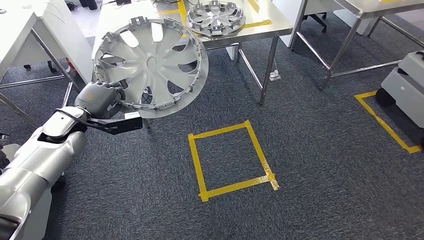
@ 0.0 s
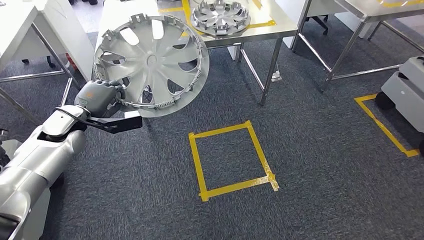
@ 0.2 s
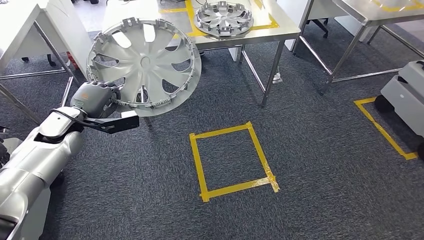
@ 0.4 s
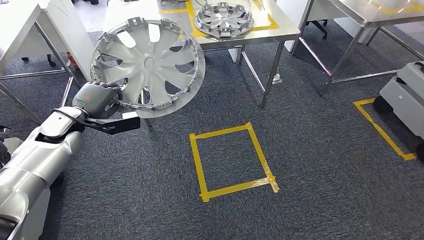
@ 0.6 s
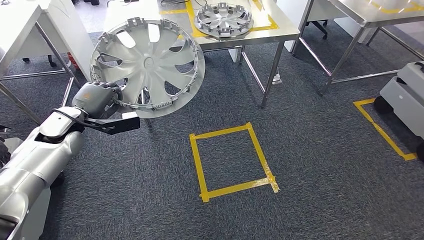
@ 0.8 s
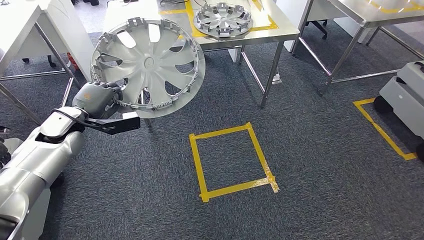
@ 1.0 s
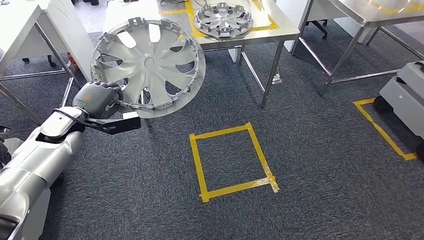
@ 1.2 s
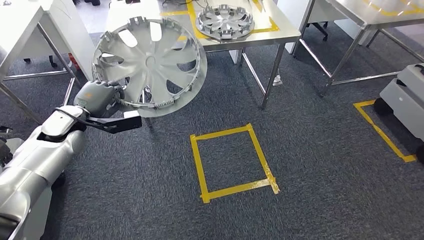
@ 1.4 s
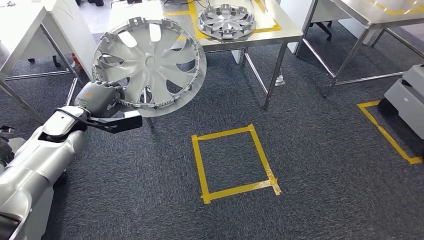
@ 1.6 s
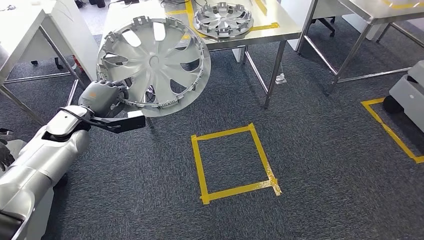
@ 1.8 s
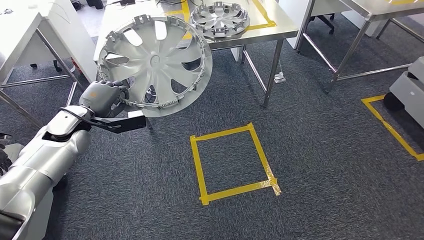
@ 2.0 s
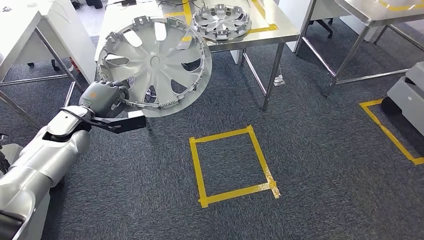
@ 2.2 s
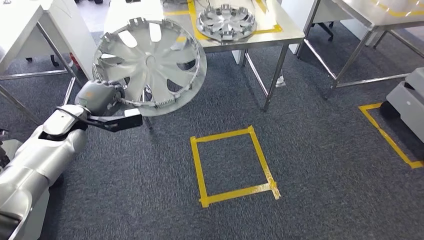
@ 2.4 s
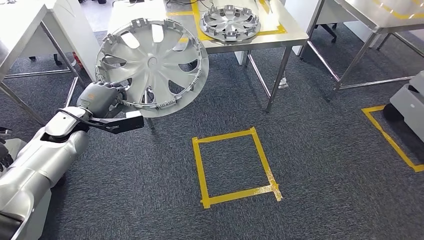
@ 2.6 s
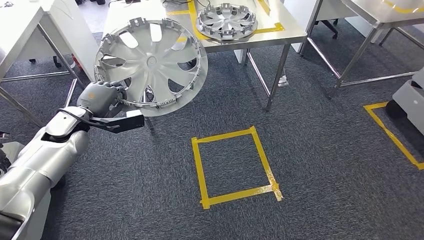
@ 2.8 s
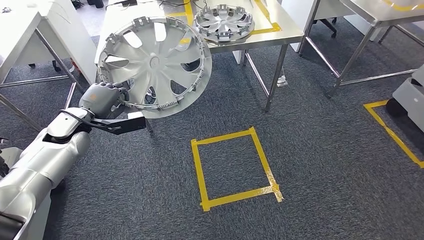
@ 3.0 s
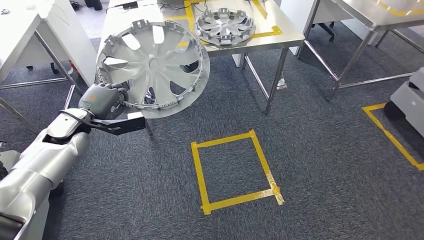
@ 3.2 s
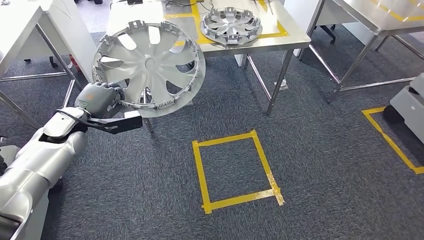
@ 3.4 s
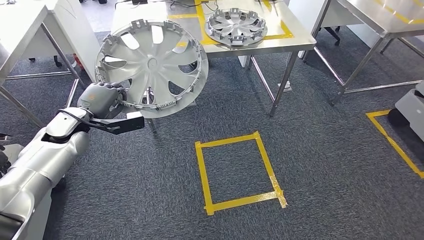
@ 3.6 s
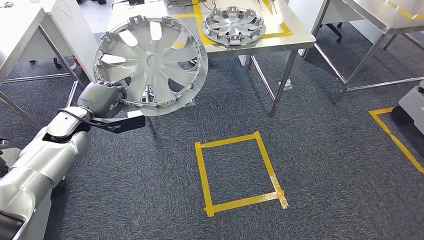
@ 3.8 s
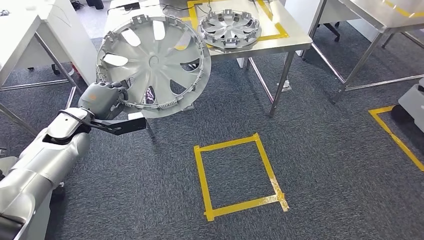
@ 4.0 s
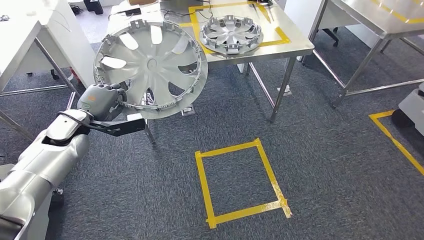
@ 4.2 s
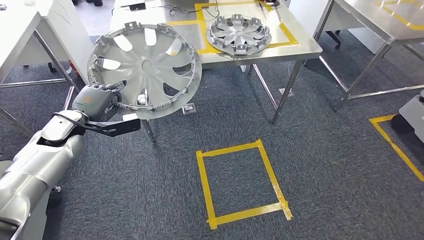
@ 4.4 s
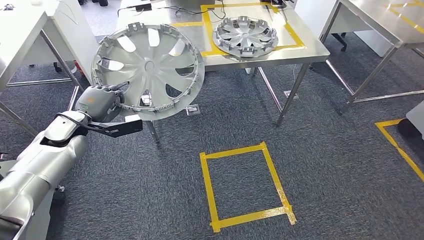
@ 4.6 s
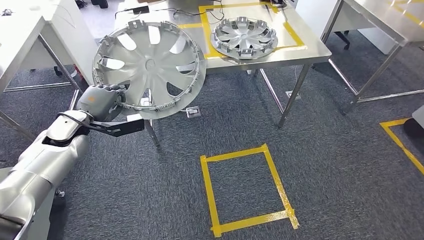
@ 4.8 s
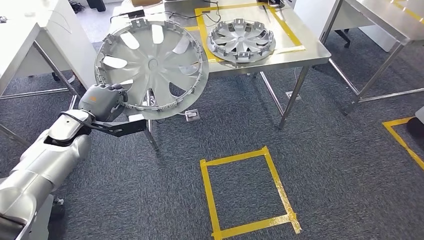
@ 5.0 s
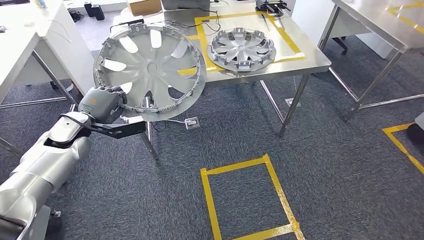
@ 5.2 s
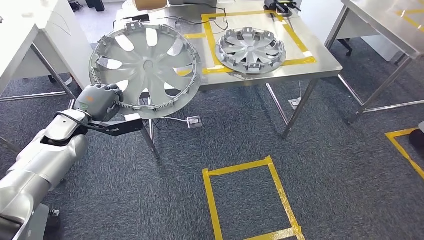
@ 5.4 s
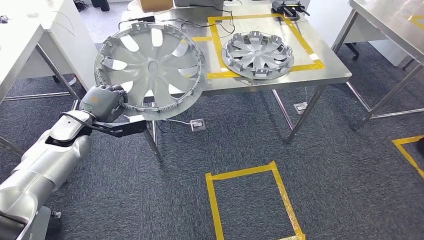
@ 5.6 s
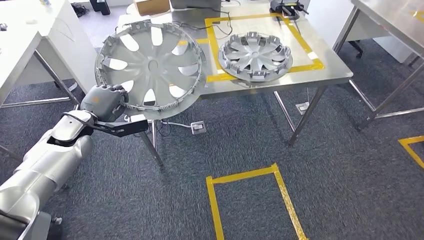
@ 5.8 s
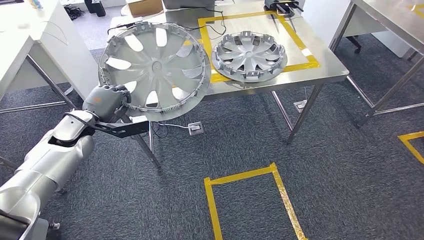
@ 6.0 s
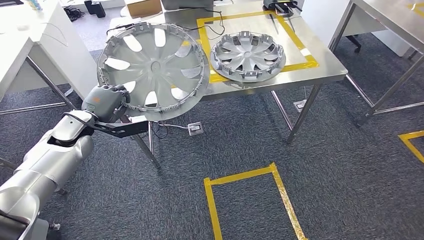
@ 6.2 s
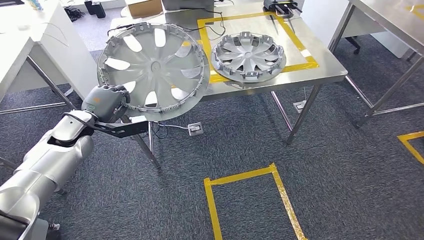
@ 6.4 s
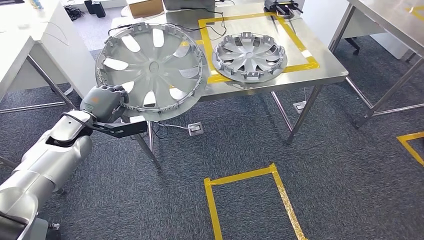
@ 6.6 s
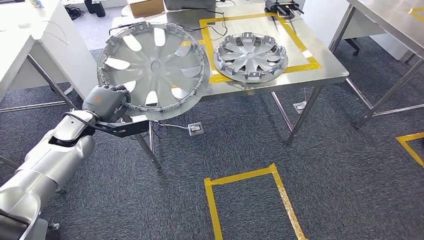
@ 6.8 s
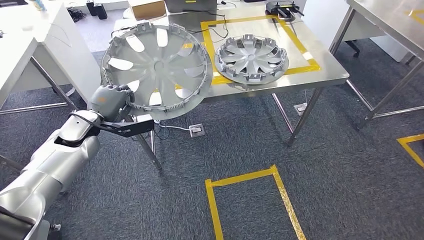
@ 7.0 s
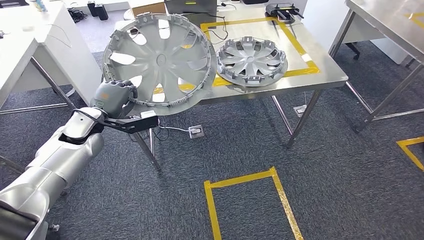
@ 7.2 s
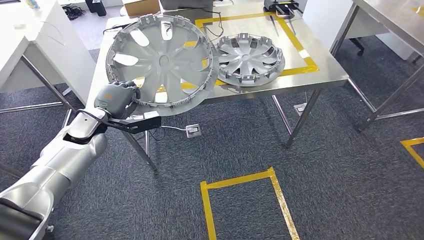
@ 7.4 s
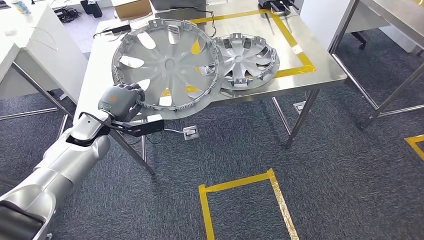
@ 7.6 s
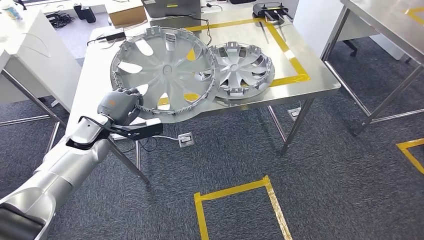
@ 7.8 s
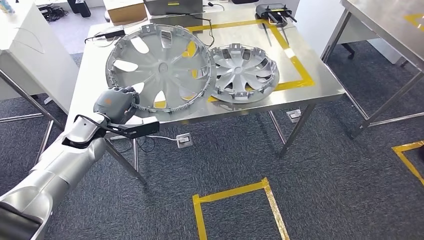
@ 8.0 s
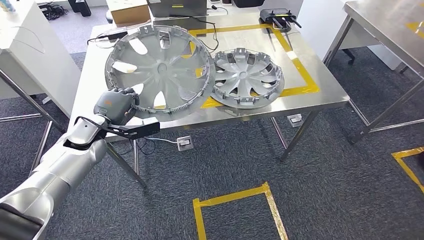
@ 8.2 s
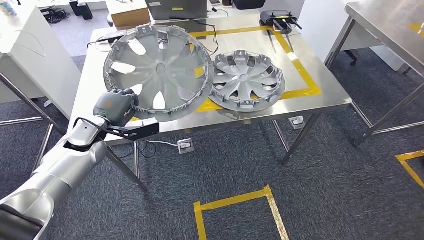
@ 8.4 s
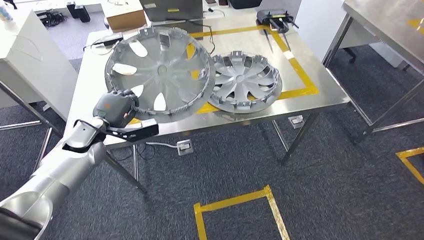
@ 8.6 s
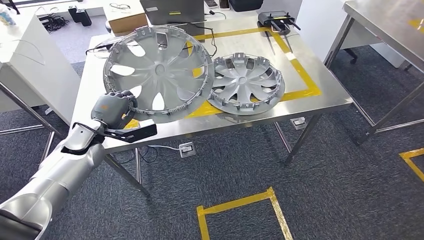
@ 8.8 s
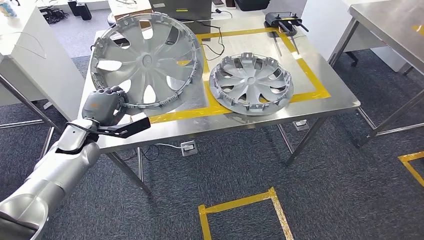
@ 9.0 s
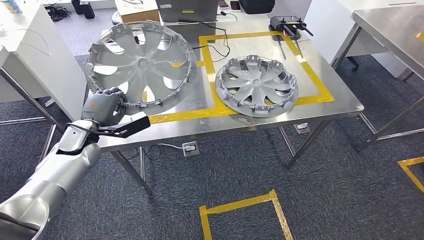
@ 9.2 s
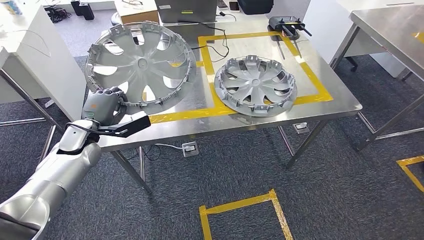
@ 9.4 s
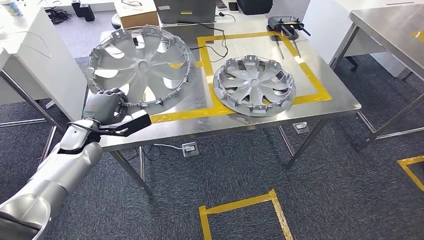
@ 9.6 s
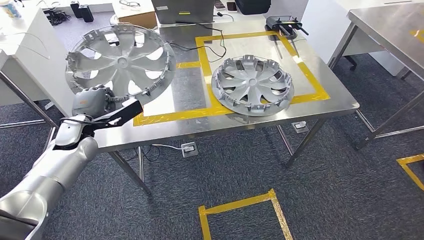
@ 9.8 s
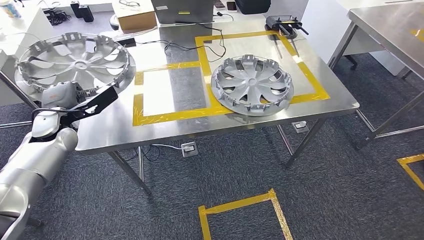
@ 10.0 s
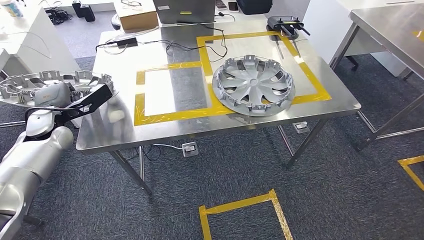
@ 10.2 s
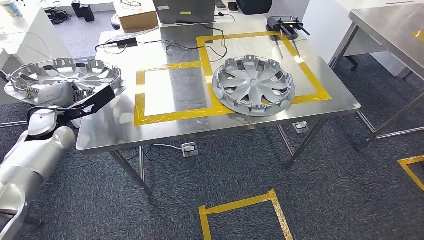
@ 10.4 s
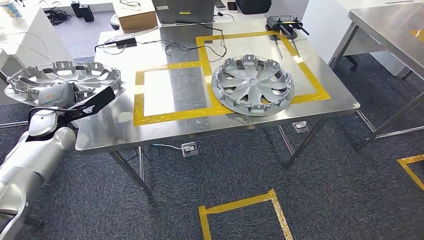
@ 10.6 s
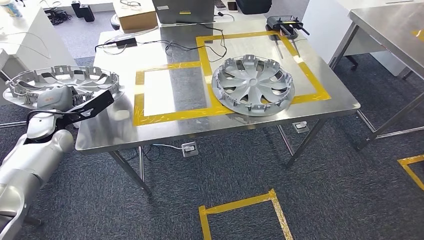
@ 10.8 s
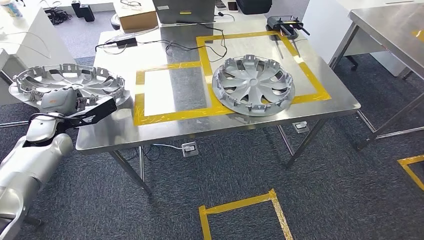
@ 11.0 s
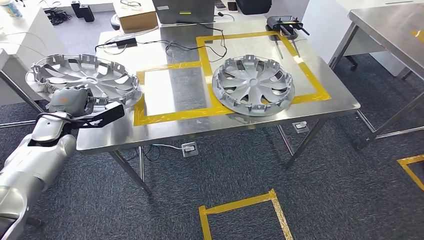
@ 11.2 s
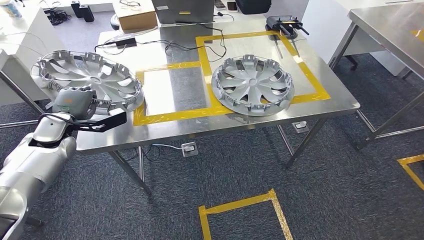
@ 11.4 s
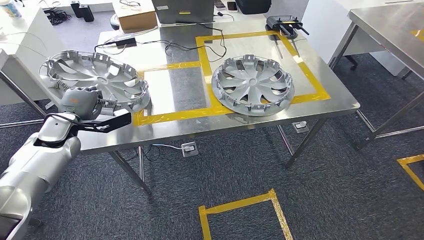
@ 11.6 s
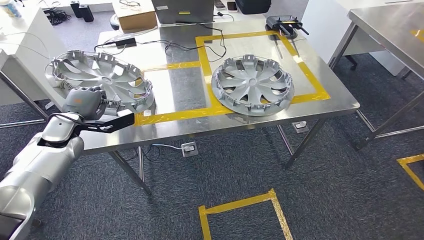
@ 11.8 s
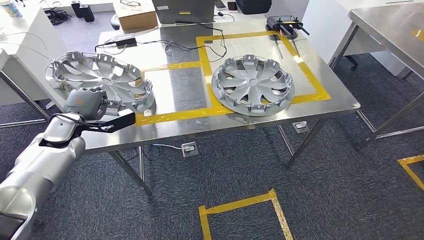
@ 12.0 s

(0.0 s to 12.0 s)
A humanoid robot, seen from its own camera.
0.0 s - 1.6 s: The two hands keep their place.

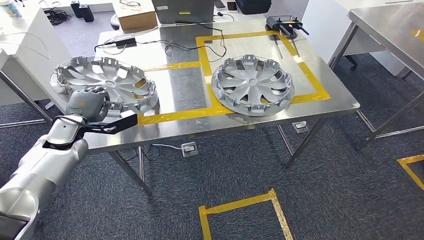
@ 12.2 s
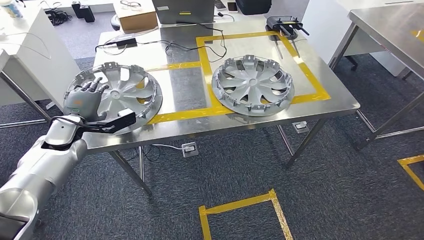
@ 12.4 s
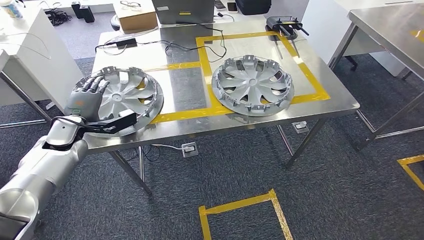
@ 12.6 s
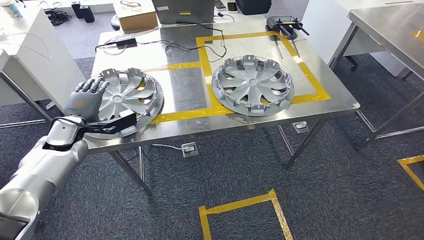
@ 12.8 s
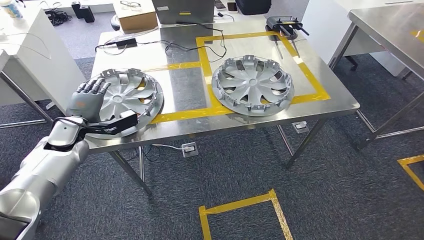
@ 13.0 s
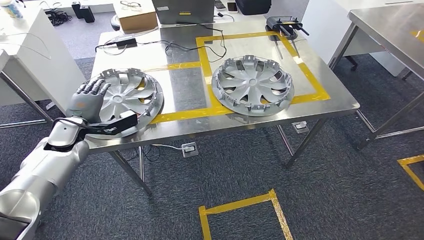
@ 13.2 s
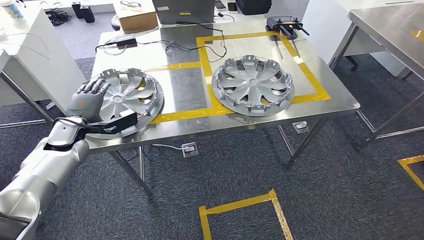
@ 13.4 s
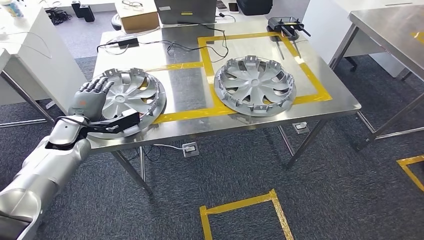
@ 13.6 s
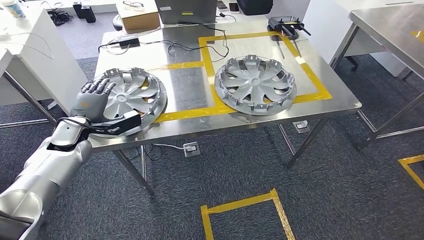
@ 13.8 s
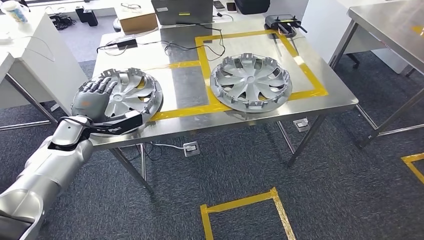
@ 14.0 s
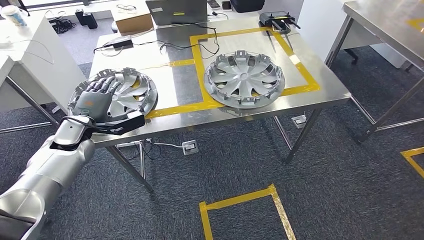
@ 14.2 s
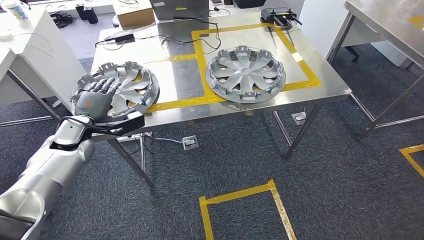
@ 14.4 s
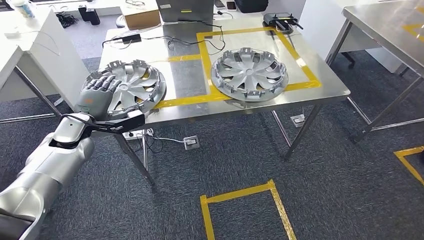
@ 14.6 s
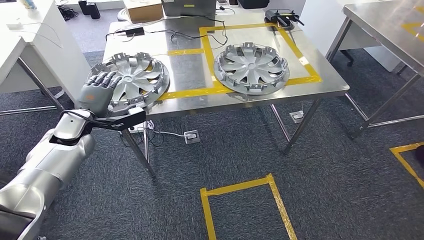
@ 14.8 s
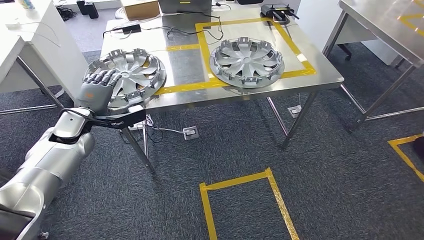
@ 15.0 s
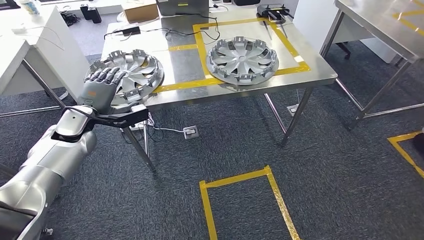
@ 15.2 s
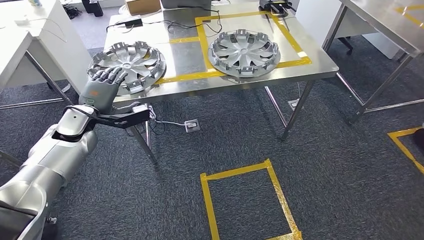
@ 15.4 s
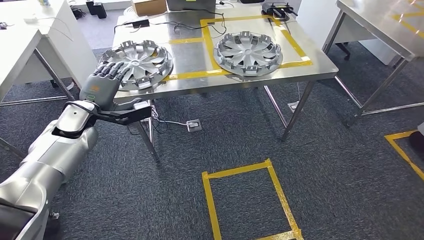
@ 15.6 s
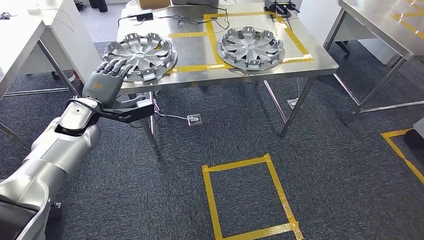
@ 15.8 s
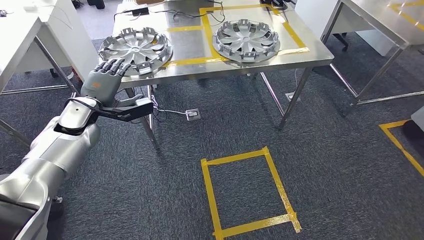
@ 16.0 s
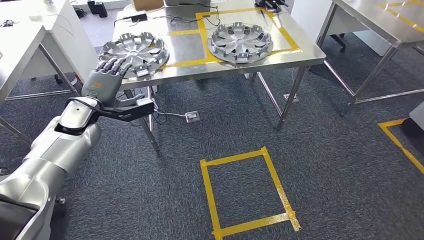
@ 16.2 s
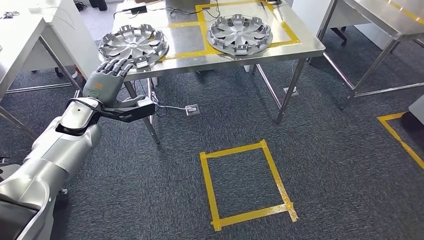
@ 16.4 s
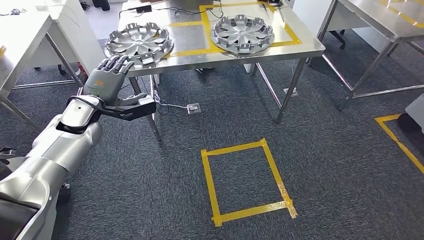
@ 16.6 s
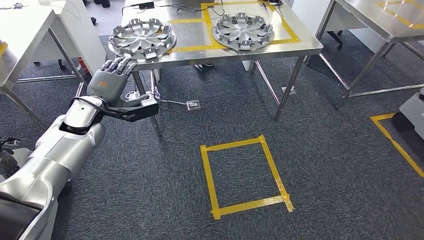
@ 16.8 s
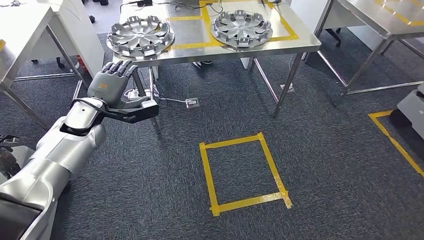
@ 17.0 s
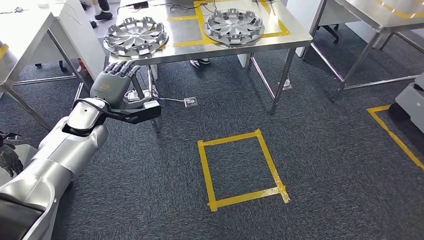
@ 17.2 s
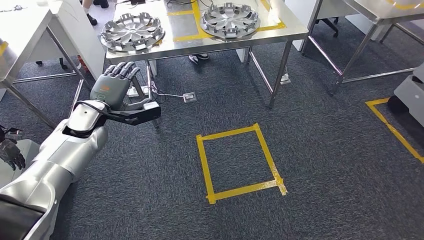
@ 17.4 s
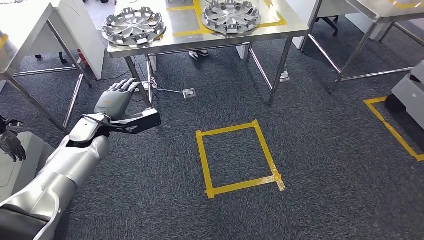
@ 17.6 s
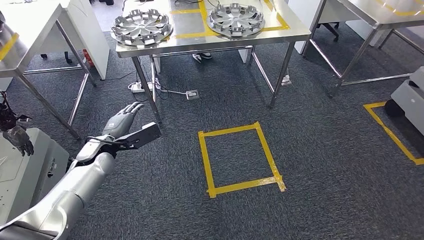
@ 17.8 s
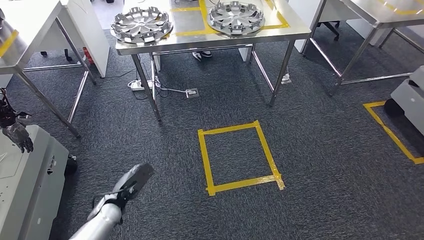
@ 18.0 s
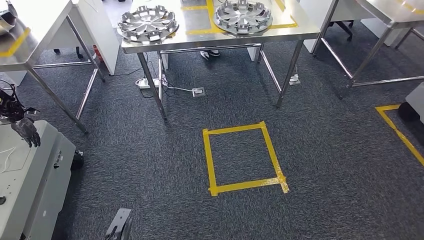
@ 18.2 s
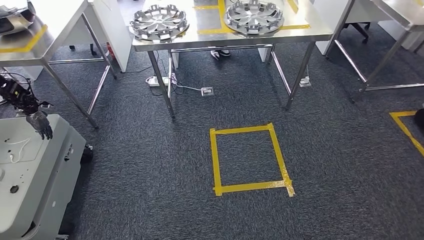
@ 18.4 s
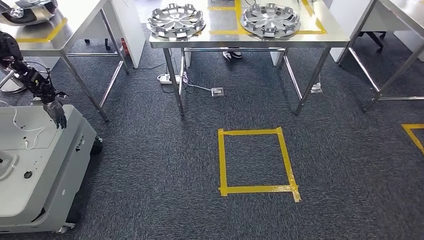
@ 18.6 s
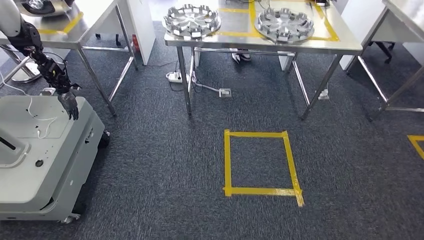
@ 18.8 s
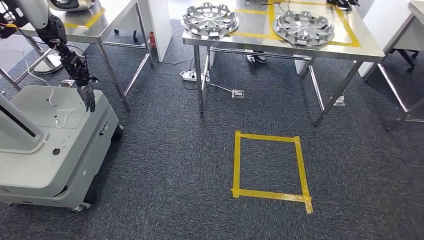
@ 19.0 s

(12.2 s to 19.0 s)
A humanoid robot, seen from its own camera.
Step, 12.2 s - 14.2 s: Insert the small component into the corresponding slot on the workbench.
Step, 14.6 s - 19.0 s: Return to the initial position at the workbench.
12.2 s - 13.6 s: The two hands keep their place.
